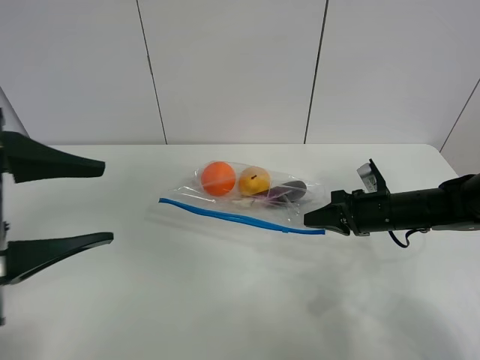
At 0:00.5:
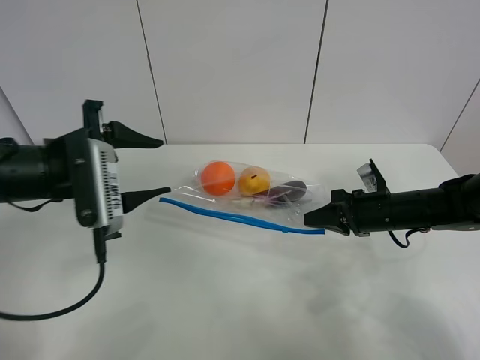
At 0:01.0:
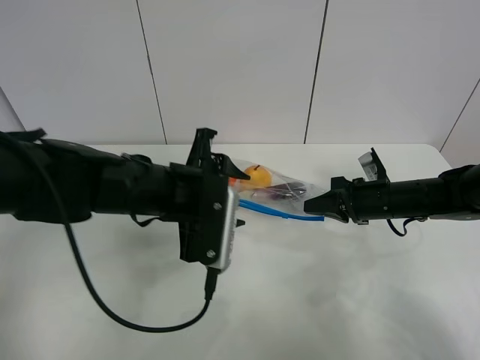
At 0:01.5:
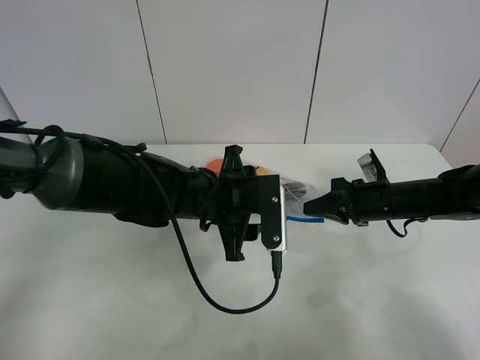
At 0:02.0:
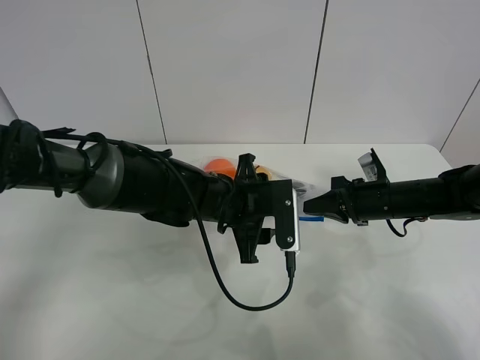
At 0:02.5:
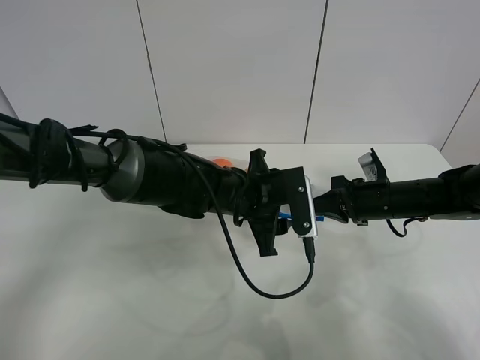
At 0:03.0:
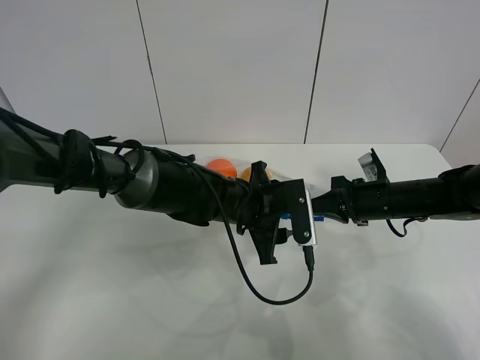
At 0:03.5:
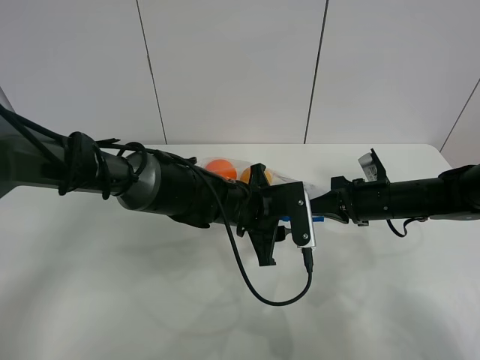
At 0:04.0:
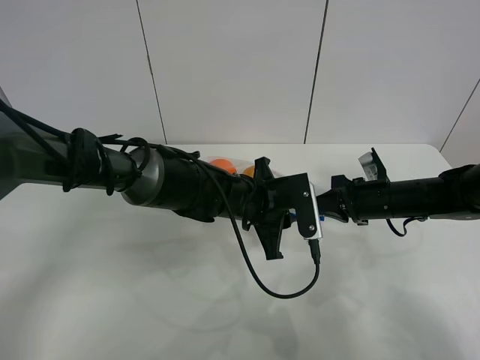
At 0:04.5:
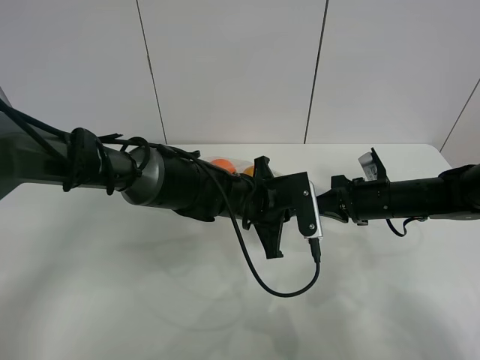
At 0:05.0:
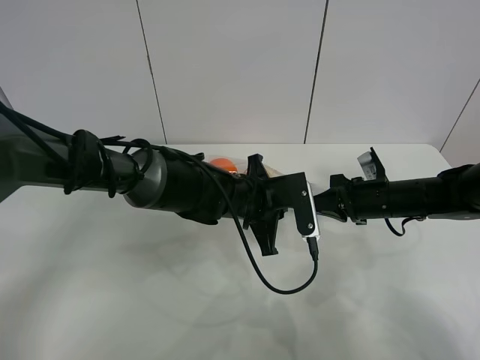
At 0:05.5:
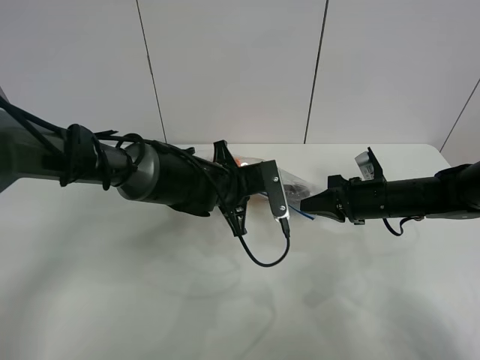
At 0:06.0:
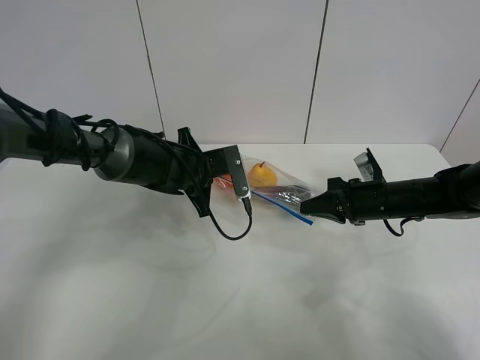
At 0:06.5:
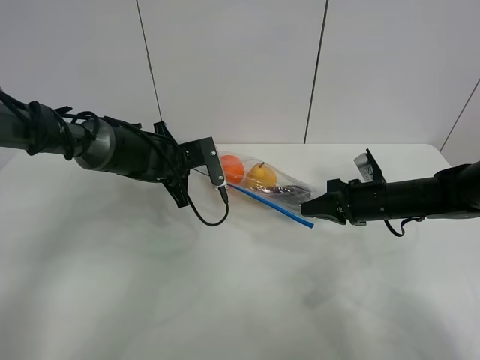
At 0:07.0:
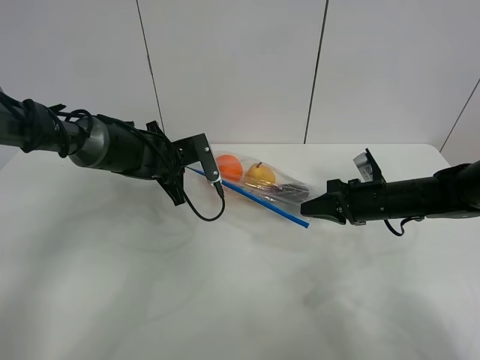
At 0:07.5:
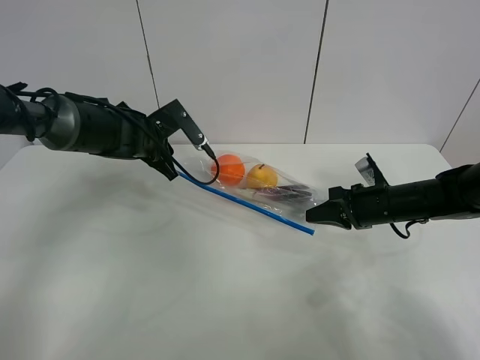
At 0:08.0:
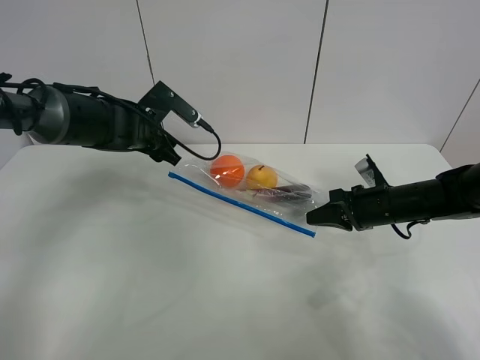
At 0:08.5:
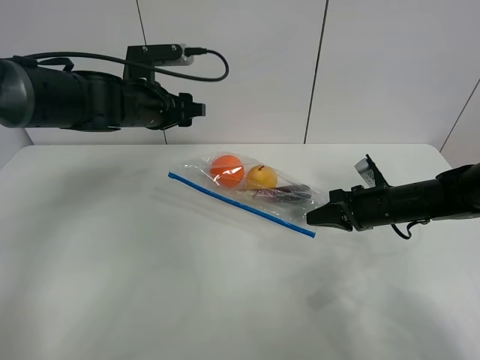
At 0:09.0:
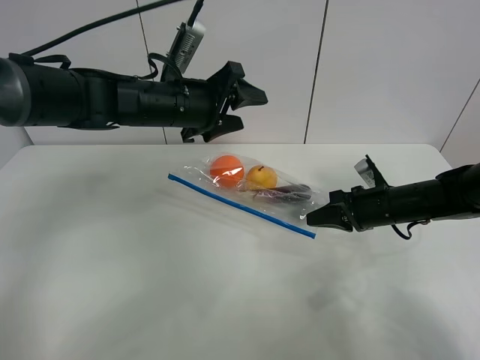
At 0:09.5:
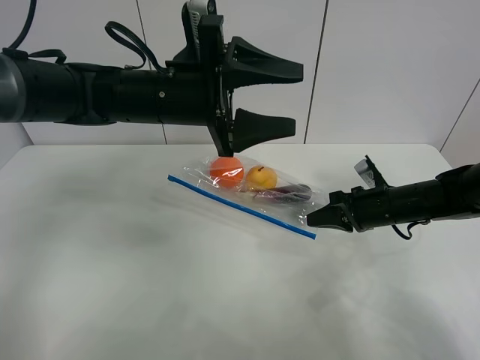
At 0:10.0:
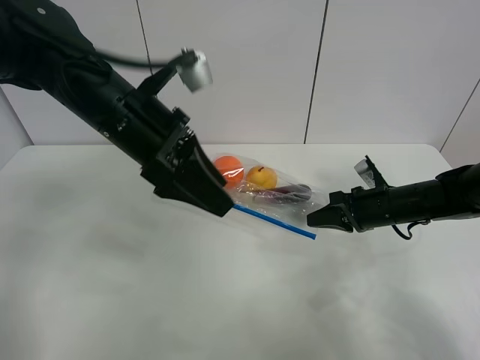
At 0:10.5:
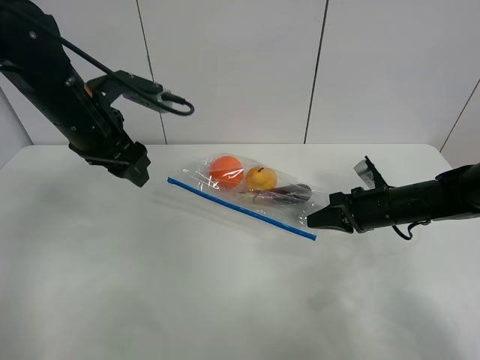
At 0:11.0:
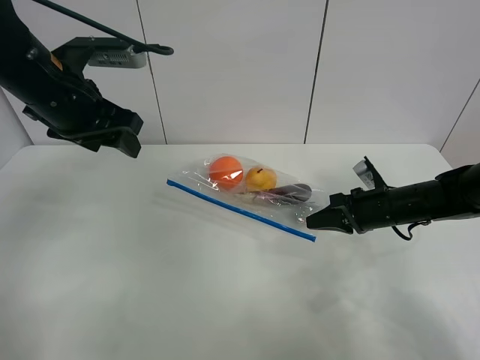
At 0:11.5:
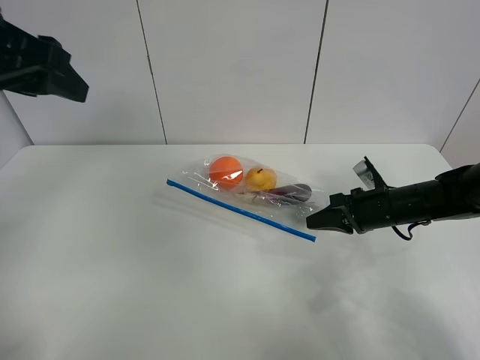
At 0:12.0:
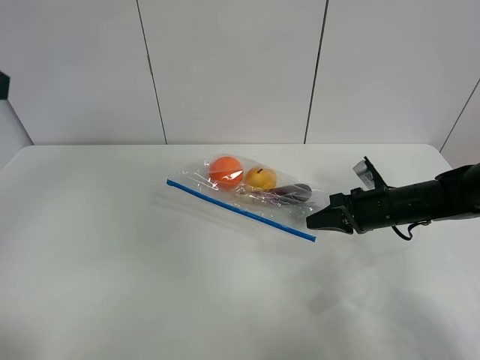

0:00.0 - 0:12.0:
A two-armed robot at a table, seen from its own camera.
Step, 0:01.0 - 0:07.0: Pull the fruit bag with left gripper.
0:00.0 - 0:02.0: The left gripper is displaced to the right, forward and downward by approximately 30 cm.
0:02.0 - 0:04.0: The left gripper closes its fingers.
0:04.0 - 0:06.0: The left gripper is displaced to the left and forward by approximately 15 cm, and closes its fingers.
0:06.0 - 0:08.0: The left gripper moves to the left and upward, roughly 10 cm, and opens up.
0:08.0 - 0:10.0: The left gripper travels backward, upward and to the right by some 15 cm.
0:10.0 - 0:12.0: The left gripper shifts approximately 25 cm to the left, backward and upward.

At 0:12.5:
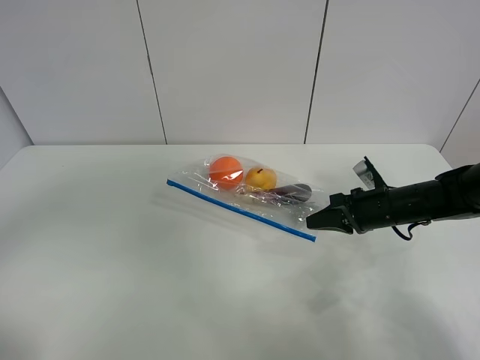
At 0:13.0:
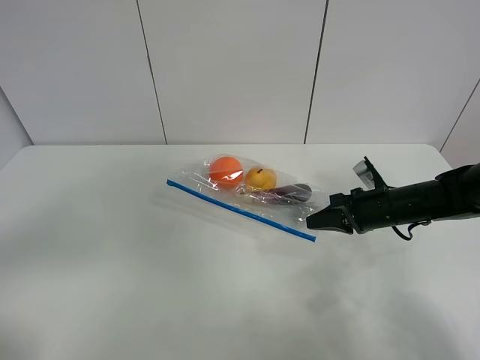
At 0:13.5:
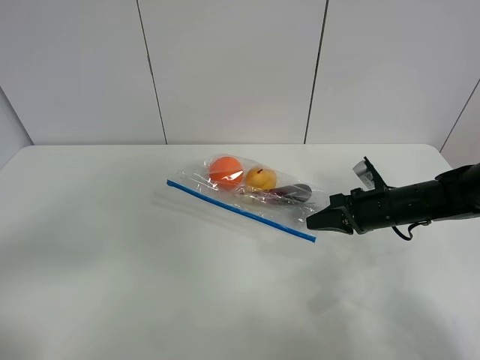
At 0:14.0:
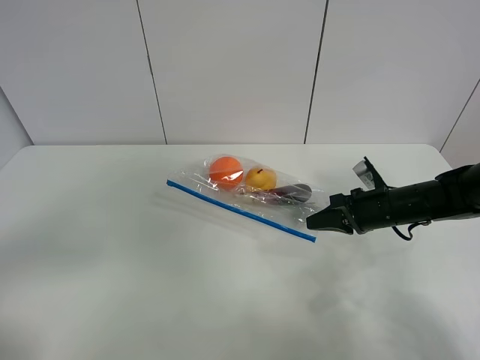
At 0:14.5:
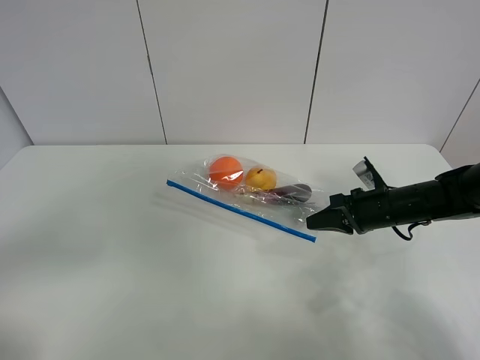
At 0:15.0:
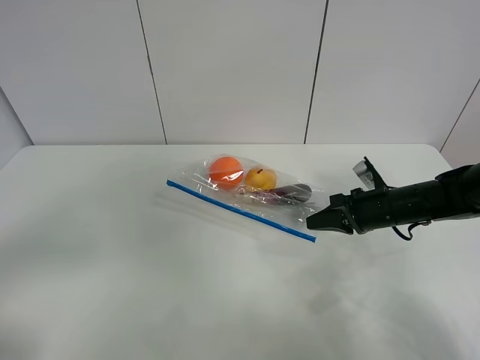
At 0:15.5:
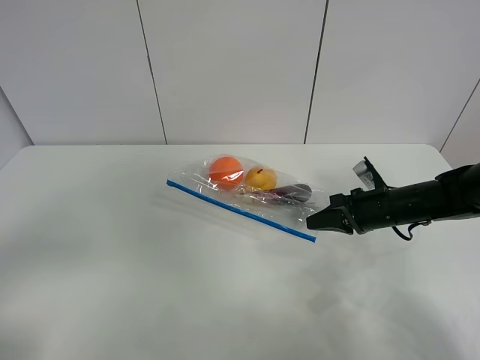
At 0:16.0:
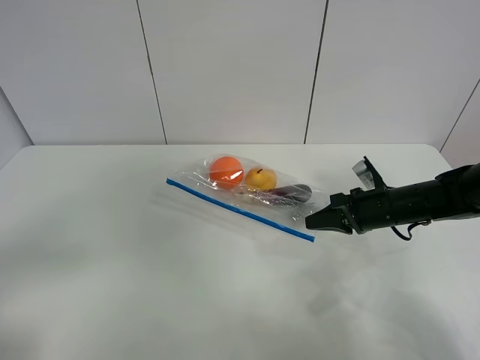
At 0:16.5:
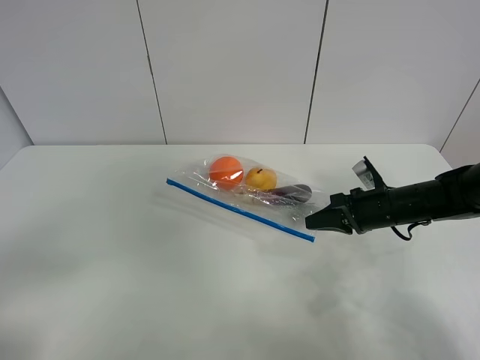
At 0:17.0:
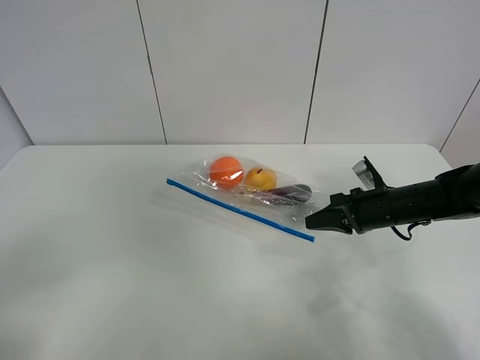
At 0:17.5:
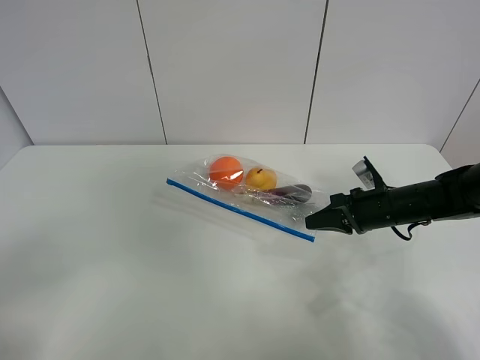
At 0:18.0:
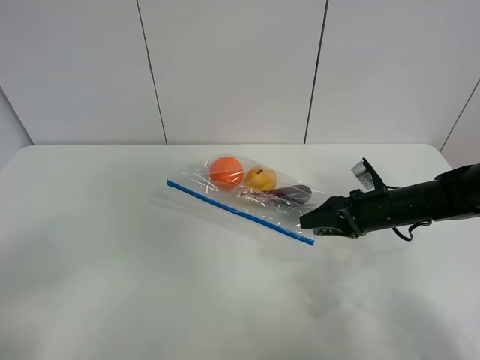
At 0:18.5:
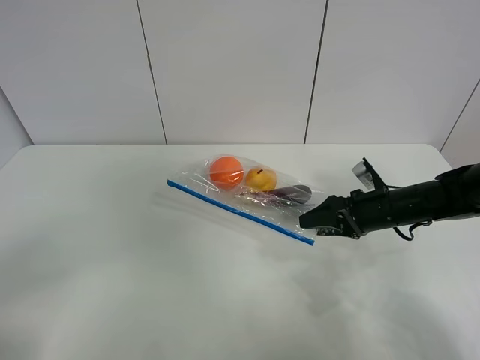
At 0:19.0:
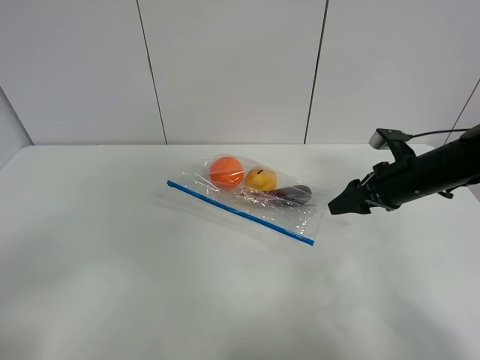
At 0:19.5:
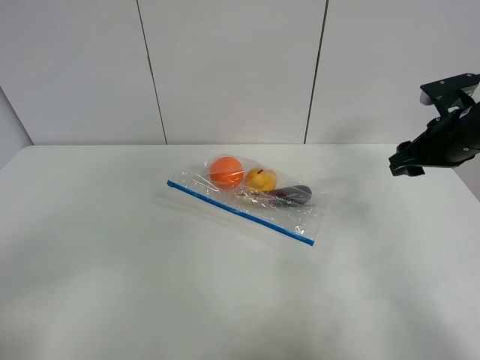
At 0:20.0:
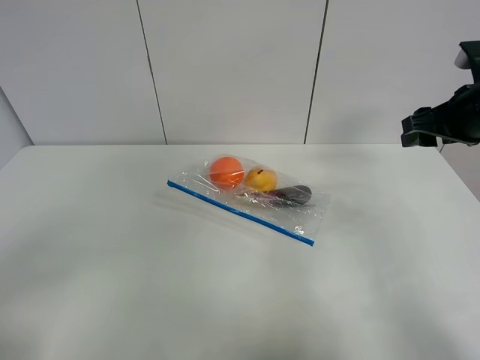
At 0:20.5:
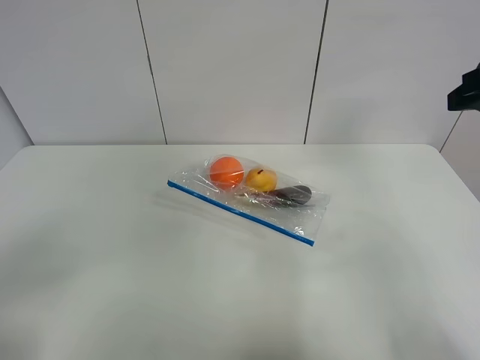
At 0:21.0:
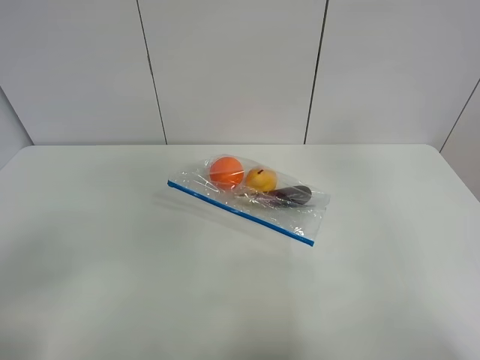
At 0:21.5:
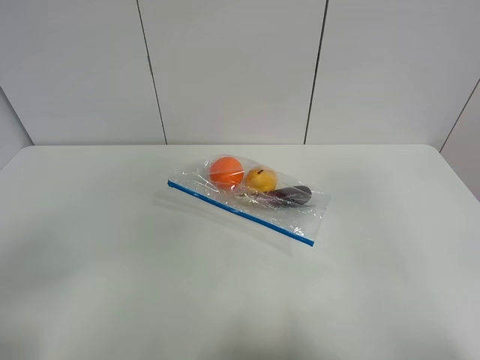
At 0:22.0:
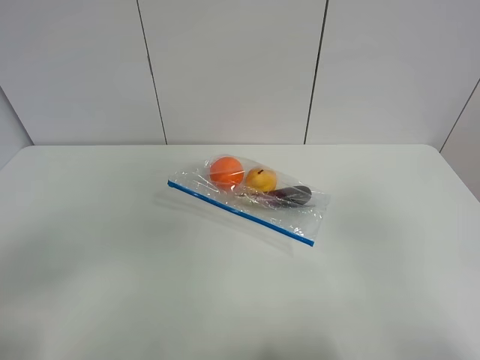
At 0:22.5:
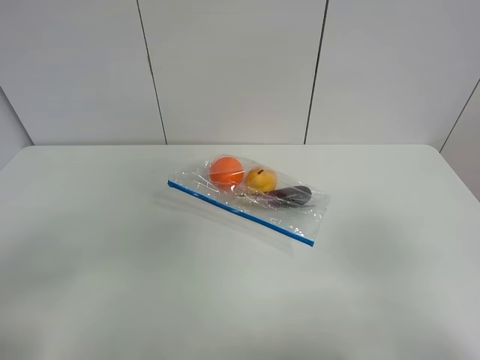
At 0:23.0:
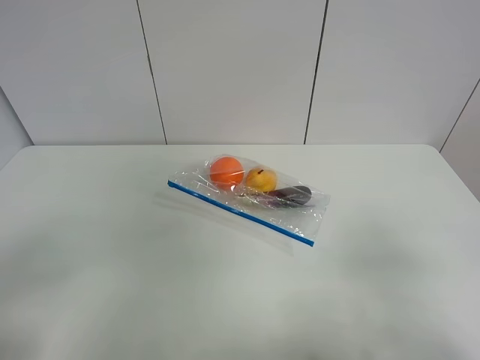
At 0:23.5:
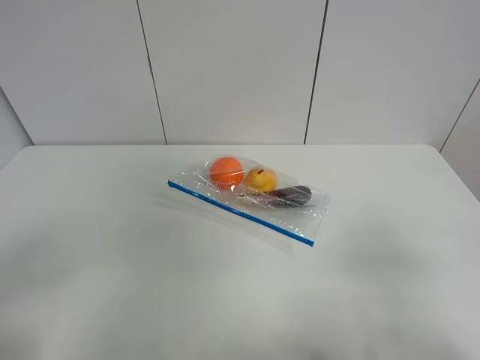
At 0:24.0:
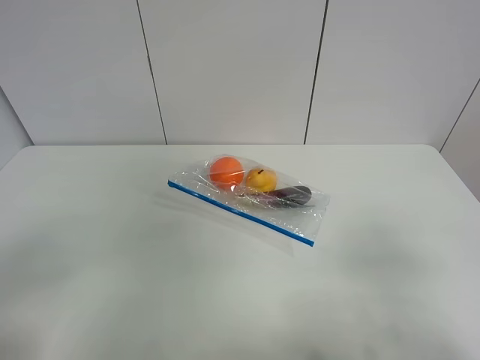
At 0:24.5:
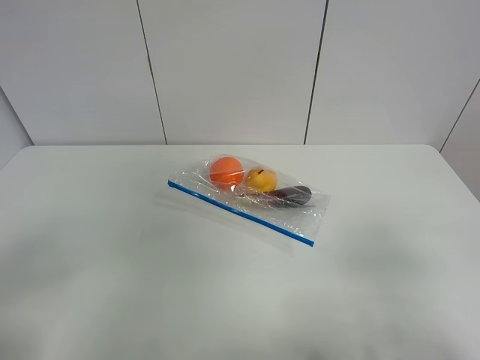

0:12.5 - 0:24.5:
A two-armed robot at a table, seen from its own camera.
0:16.5 - 0:18.5: The right gripper opens.
0:18.5 - 0:20.5: The right gripper heads upward, covering some 25 cm.
0:20.5 - 0:22.5: The right gripper moves backward, some 25 cm.

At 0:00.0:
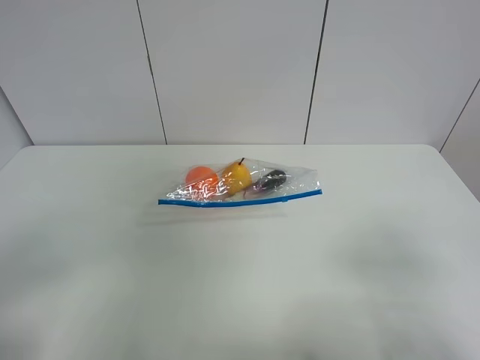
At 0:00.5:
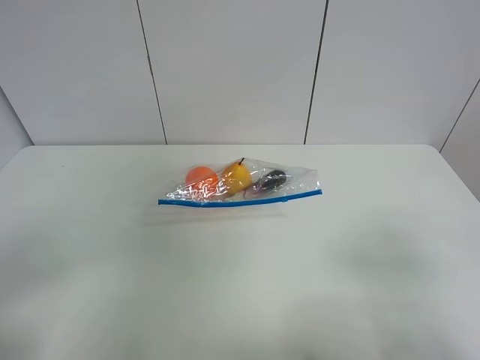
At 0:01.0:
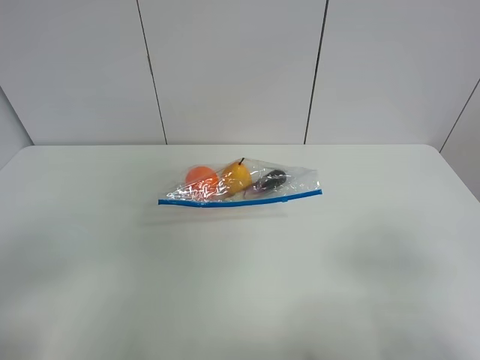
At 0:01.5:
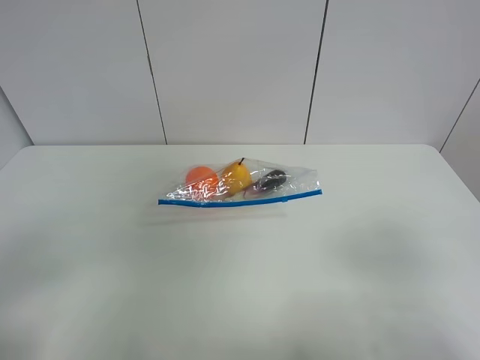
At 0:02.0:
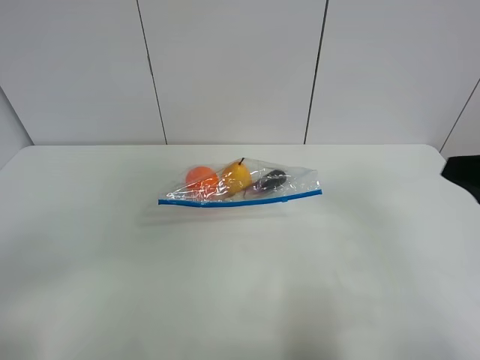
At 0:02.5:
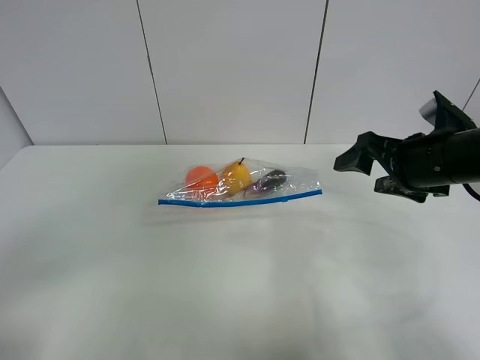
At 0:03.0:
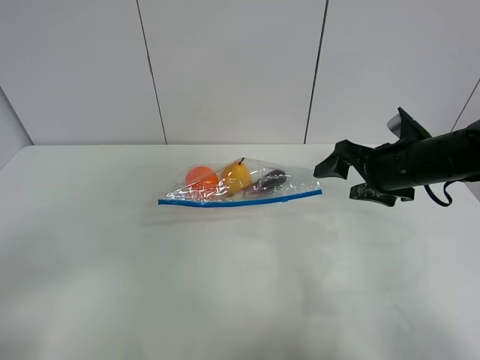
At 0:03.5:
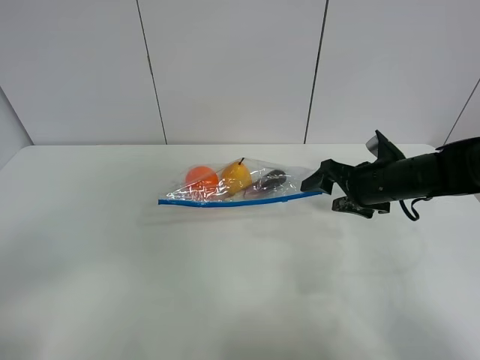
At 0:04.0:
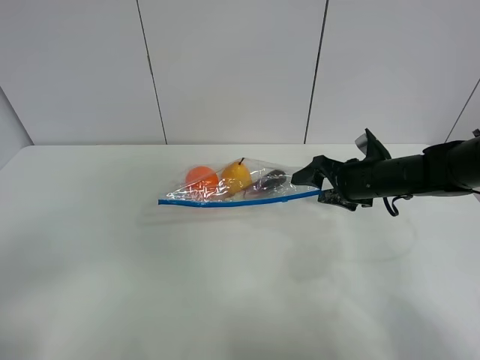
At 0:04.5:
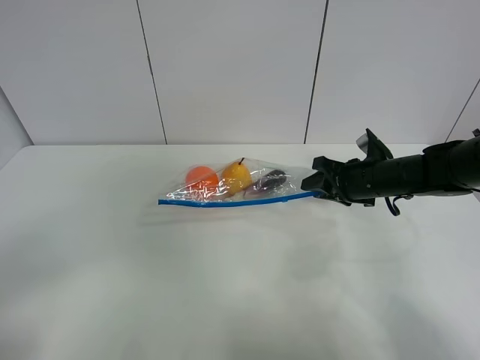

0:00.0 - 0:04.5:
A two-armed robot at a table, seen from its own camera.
0:00.0 - 0:02.0: The right gripper shifts about 15 cm forward.
0:02.0 - 0:04.5: The right gripper shifts about 25 cm forward and downward, and closes its fingers.
